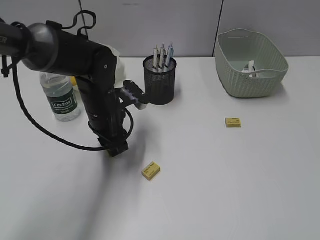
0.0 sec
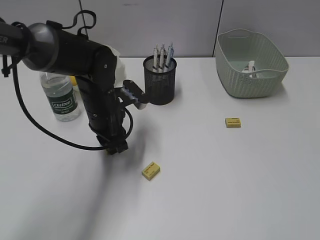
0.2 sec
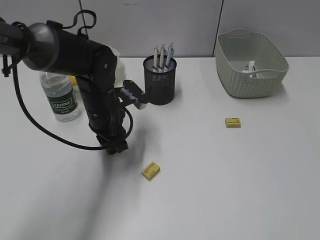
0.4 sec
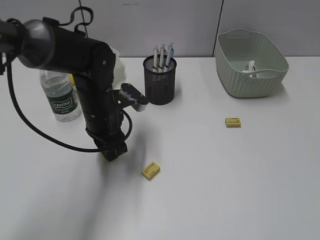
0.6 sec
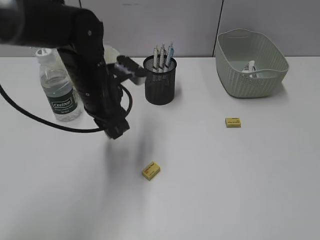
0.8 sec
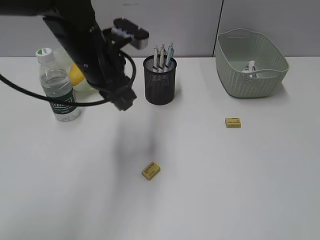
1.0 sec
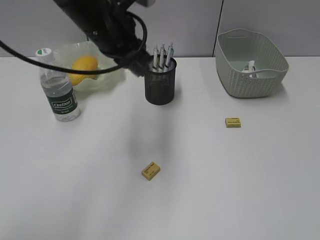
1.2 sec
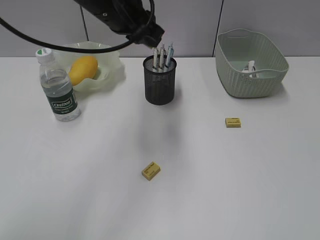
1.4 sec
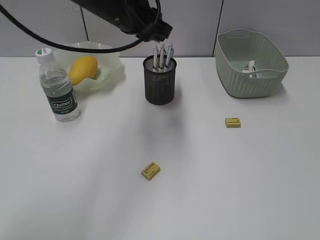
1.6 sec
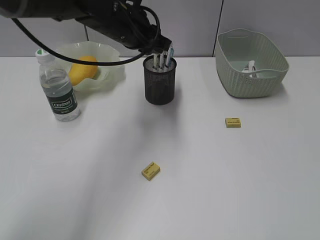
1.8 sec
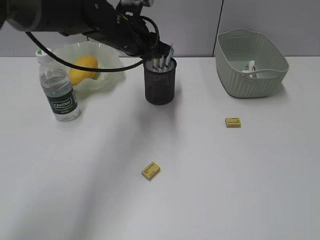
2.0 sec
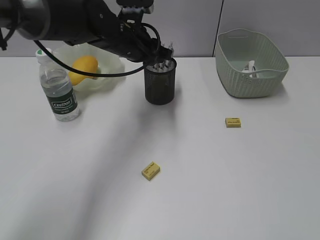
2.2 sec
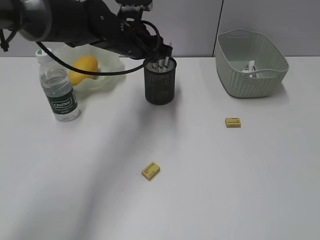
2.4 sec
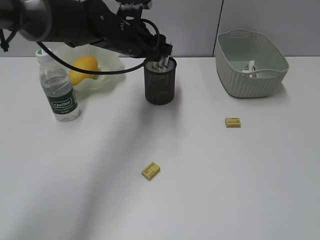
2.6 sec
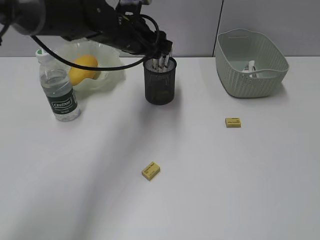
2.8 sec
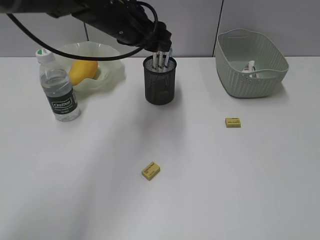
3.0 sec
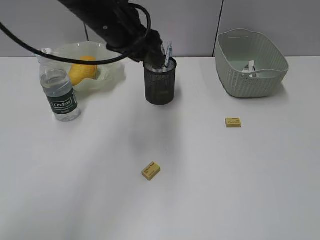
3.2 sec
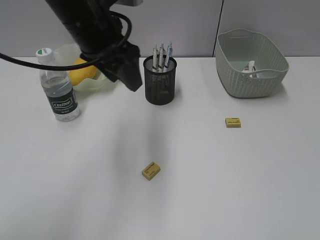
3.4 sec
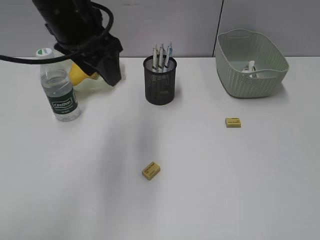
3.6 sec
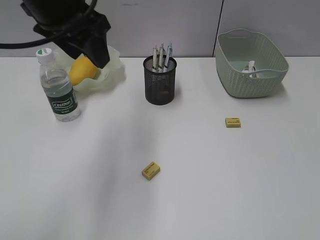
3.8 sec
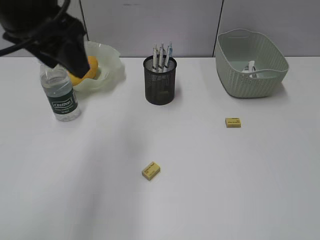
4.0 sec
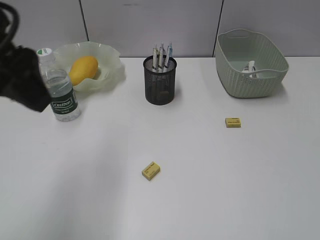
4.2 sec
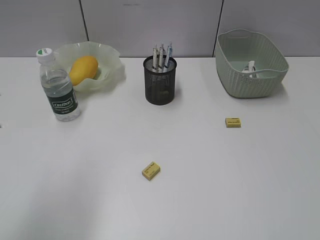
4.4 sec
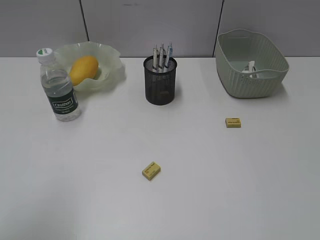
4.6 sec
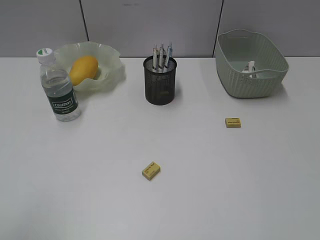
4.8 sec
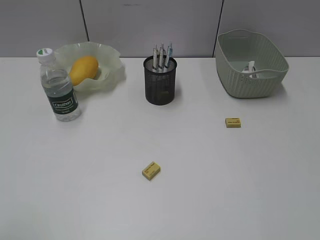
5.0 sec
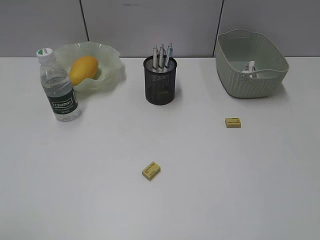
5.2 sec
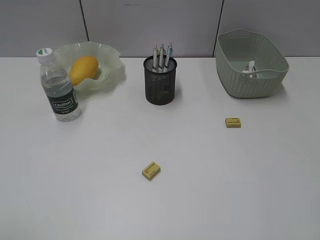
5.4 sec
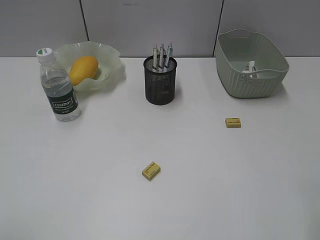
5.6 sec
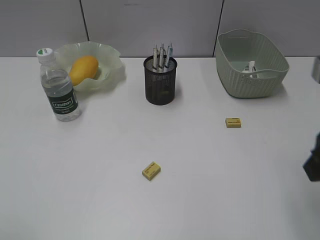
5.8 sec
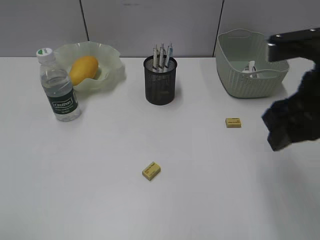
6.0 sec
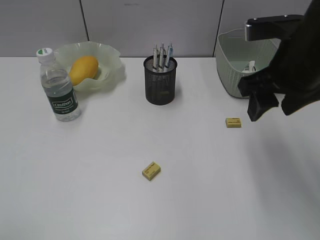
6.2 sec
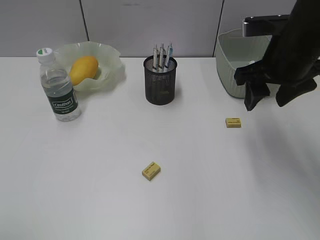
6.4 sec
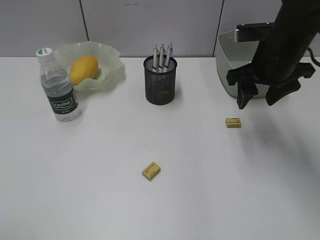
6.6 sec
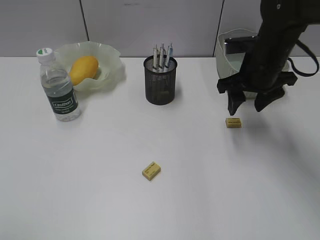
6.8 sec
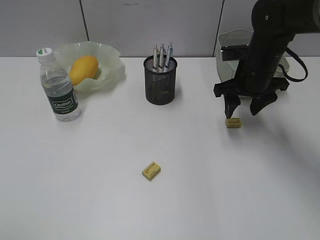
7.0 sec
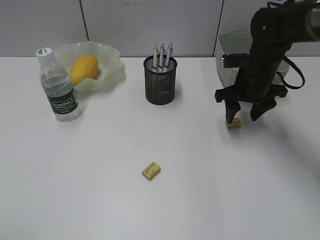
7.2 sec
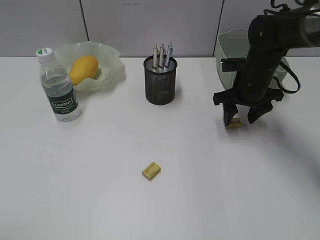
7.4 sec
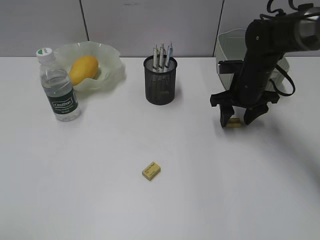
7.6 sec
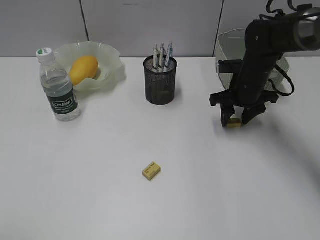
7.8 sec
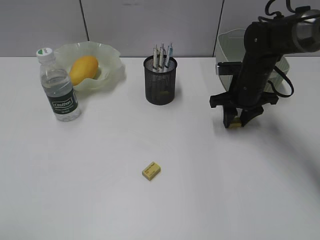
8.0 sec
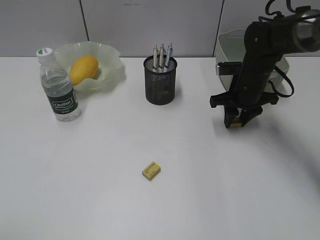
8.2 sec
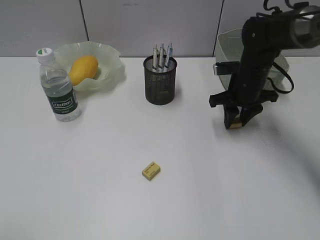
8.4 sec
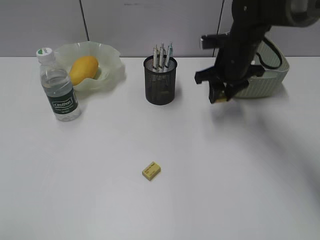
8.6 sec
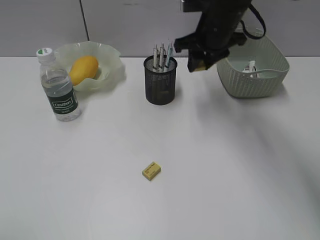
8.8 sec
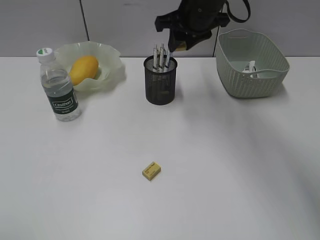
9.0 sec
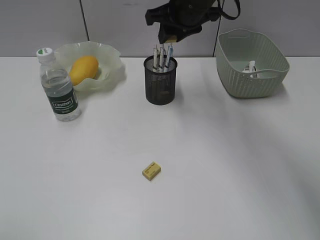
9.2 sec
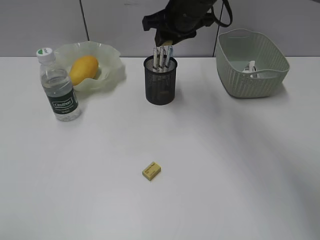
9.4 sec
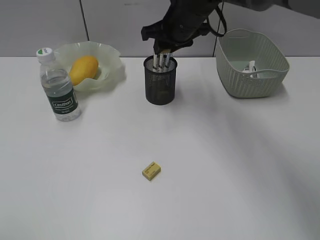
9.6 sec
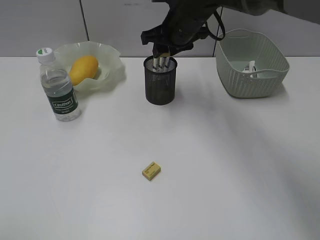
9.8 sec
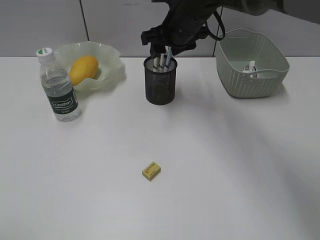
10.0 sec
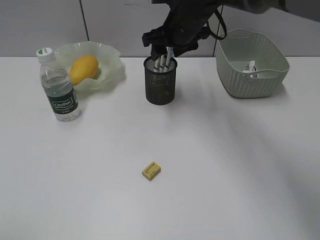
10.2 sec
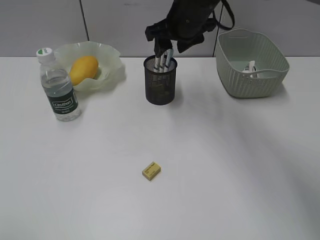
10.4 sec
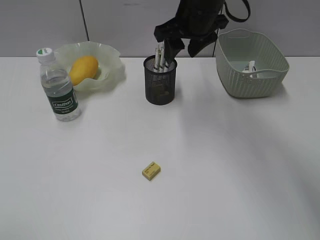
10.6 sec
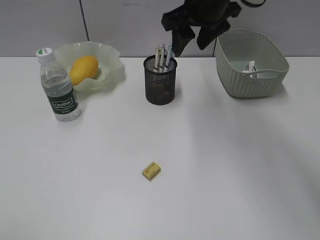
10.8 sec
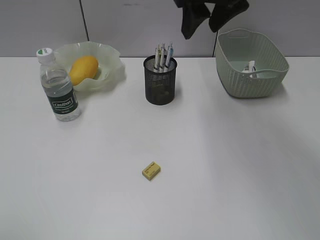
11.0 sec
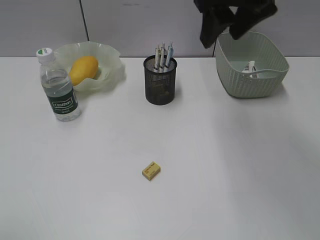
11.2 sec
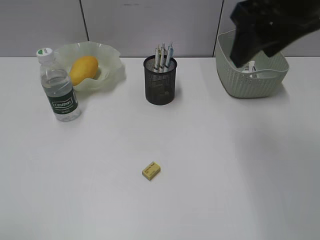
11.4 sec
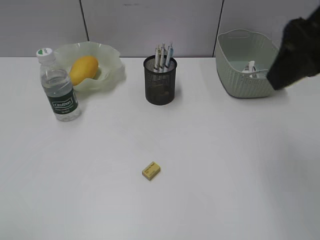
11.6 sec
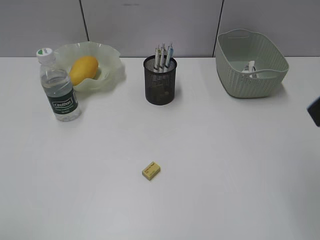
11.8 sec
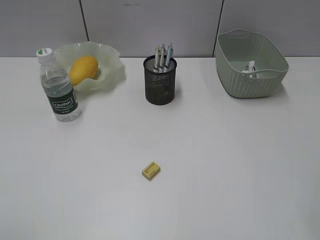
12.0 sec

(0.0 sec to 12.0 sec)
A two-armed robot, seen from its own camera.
Step, 0.6 sec - 2.4 sec: Place the eraser in pen holder with left gripper.
Step, 2.6 sec - 8.2 sec: Grasp the eraser with right gripper.
Step, 8.4 sec - 10.0 sec: Place the eraser in pen holder with right gripper.
0.0 sec - 1.6 sec: The left gripper travels upward by about 15 cm.
1.6 sec - 3.0 sec: The left gripper opens.
3.0 sec - 4.4 sec: The left gripper heads backward and to the left, covering roughly 30 cm.
4.4 sec - 6.0 sec: The right gripper is displaced forward and to the left by roughly 20 cm.
6.0 sec - 7.6 sec: The right gripper goes roughly 25 cm forward and downward.
7.6 sec - 9.0 sec: The right gripper moves upward and to the left, about 20 cm, and closes up.
9.0 sec - 10.4 sec: The right gripper opens its fingers.
10.4 sec - 12.0 sec: The right gripper is displaced backward and to the right by roughly 40 cm.

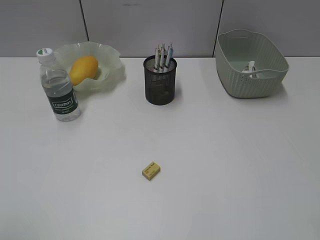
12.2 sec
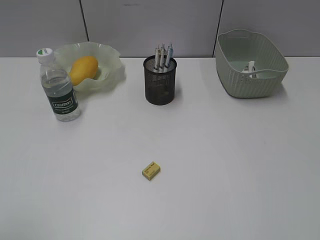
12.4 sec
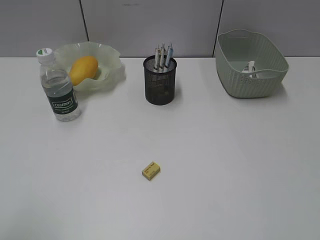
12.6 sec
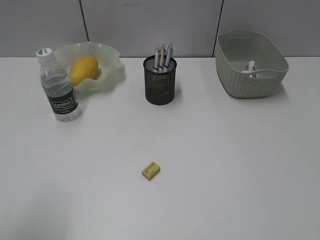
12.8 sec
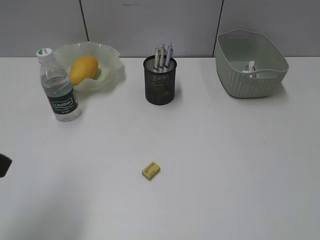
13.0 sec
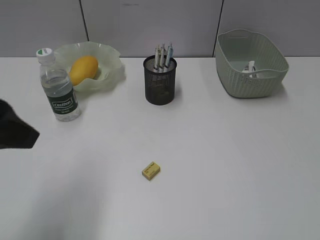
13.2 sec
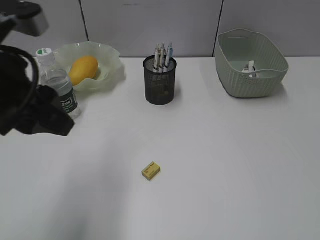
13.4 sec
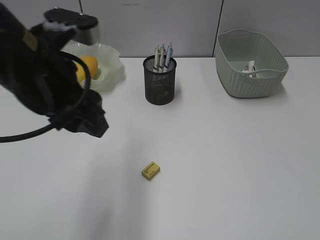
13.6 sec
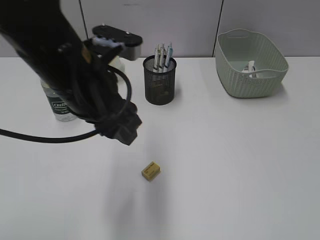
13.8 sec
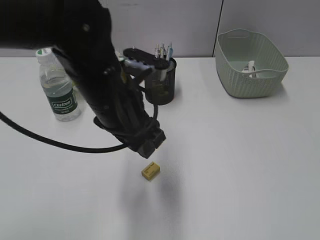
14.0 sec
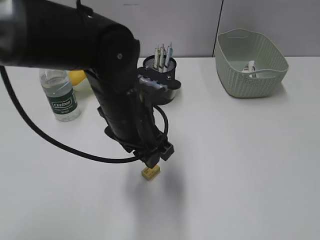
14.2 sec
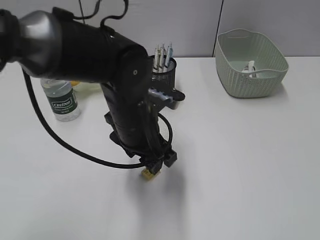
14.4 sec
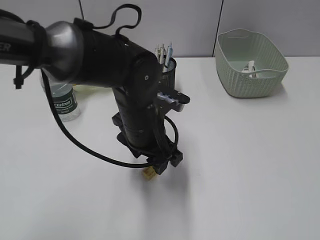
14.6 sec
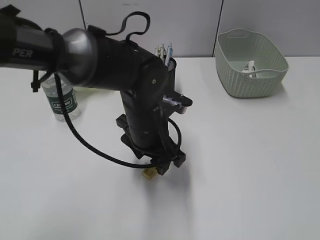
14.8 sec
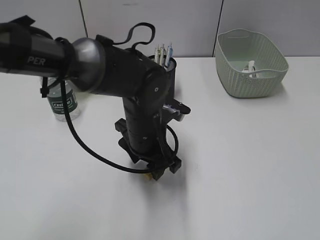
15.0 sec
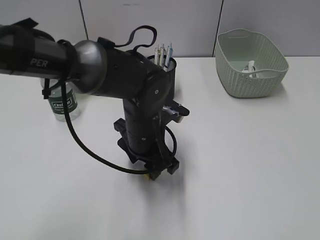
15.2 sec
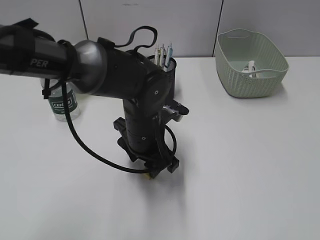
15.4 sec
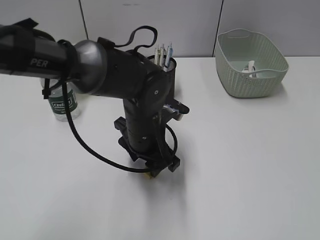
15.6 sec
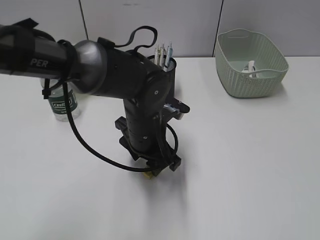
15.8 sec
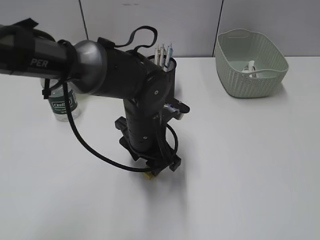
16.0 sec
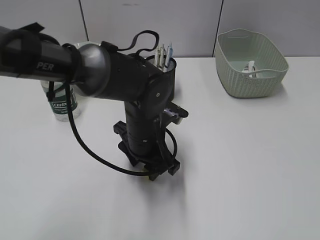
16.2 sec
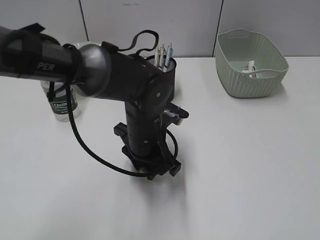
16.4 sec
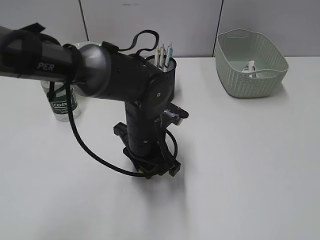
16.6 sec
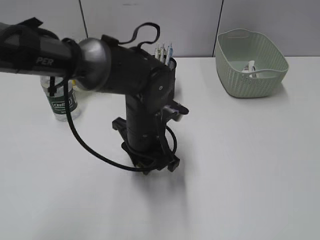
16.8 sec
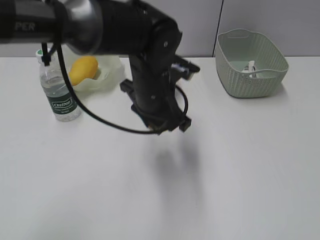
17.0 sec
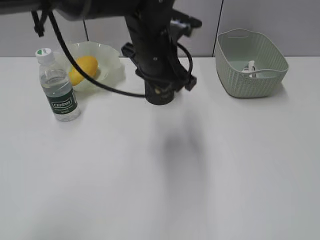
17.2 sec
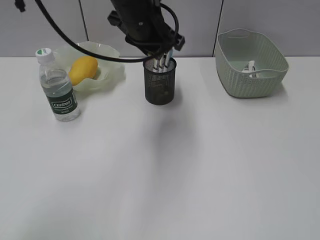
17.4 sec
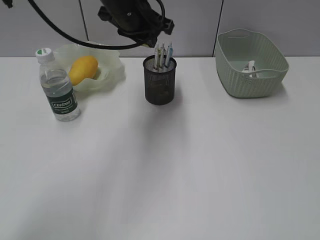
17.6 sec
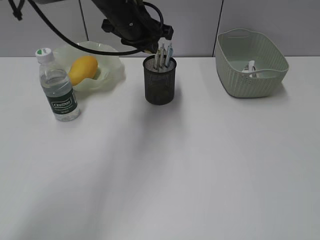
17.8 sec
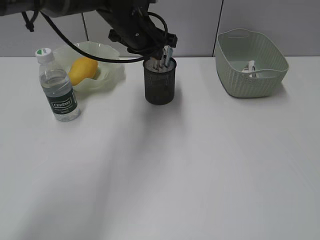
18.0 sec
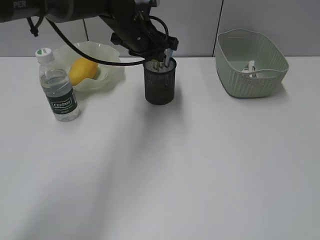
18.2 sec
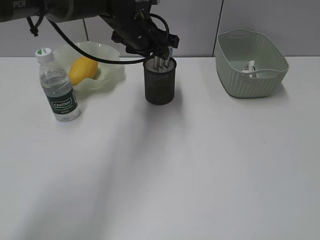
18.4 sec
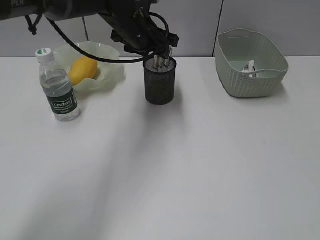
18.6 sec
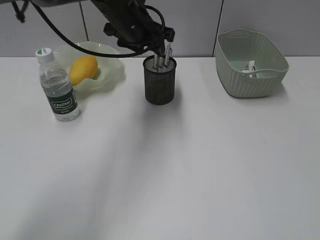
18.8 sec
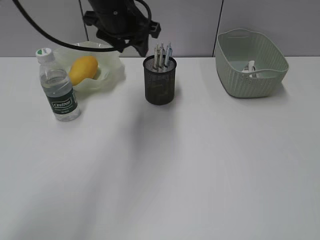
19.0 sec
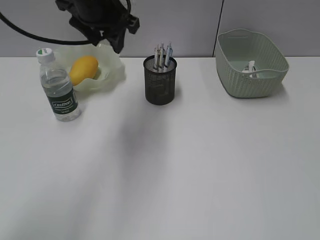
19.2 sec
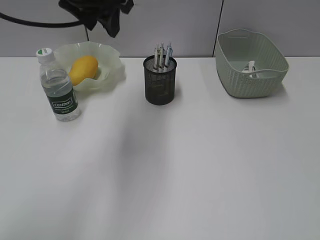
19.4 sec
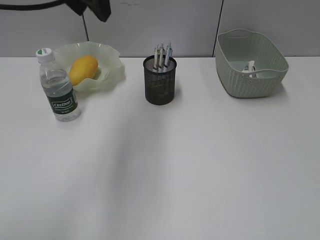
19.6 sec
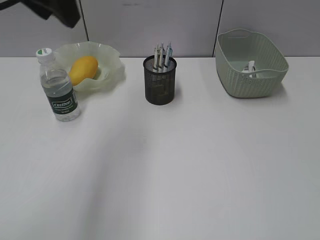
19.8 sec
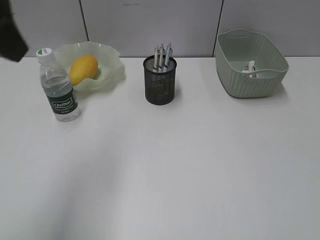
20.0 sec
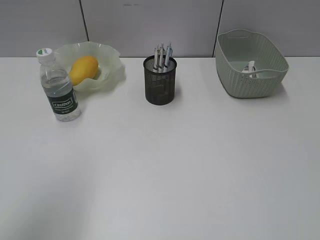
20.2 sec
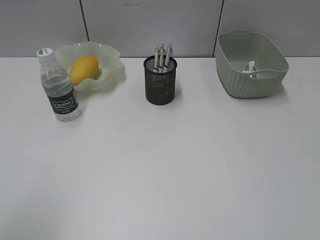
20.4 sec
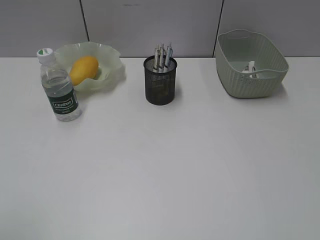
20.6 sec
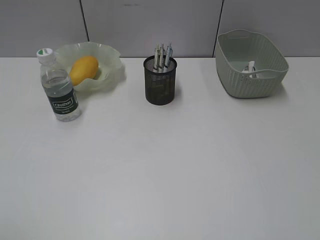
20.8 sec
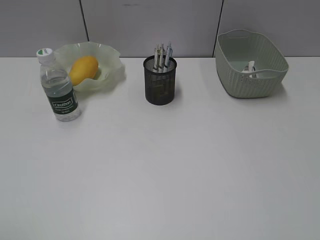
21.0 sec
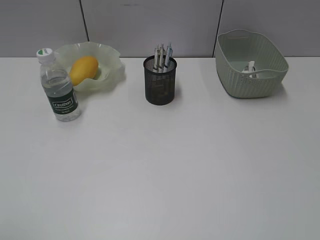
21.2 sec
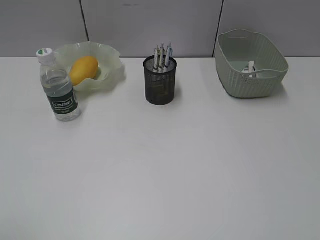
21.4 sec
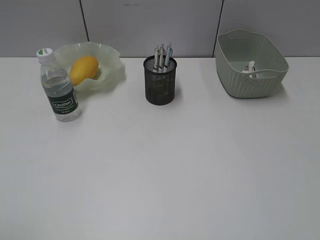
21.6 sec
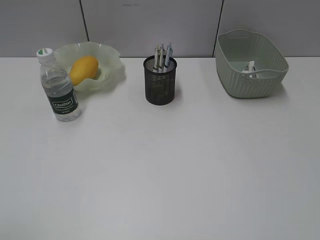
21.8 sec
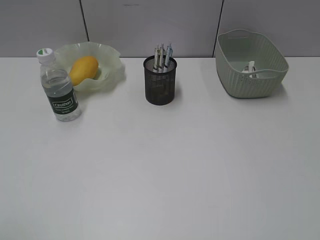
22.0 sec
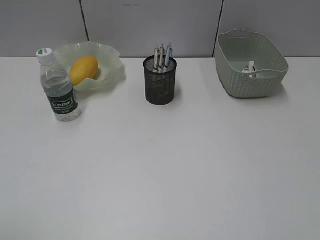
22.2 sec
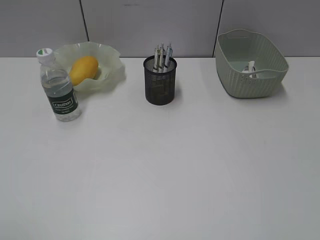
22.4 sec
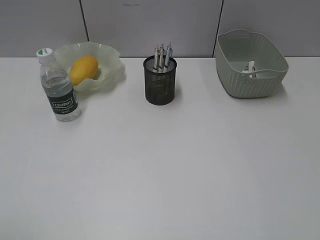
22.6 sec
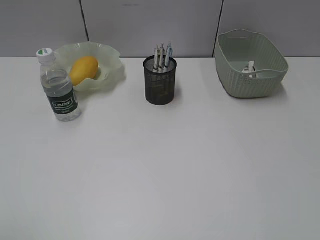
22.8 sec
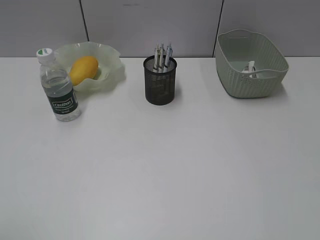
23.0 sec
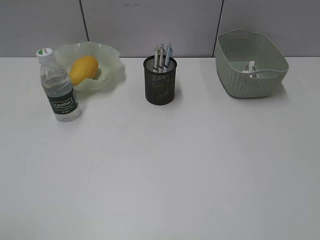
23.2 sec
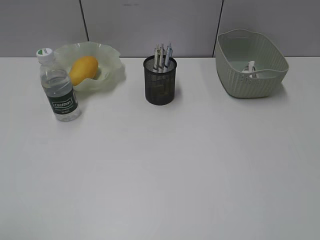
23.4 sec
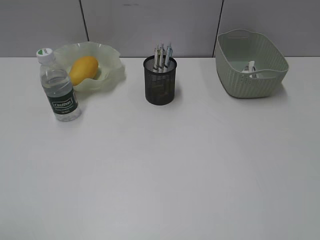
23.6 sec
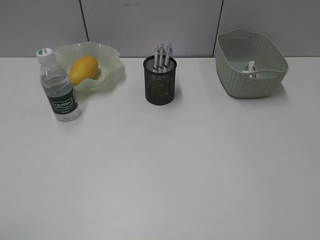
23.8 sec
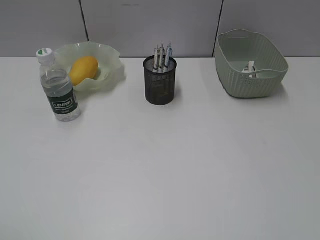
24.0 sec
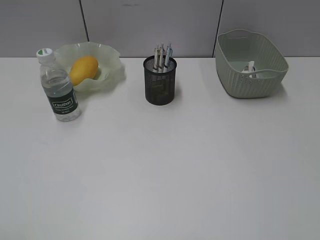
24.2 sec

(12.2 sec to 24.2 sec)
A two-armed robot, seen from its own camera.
Step, 12.2 sec - 16.6 sec: Grasp the eraser with left gripper.
Step, 16.8 sec - 18.4 sec: Place the eraser in pen holder with left gripper.
12.2 sec - 13.8 sec: The right gripper heads downward, covering some 5 cm; the left gripper moves forward and to the right, some 30 cm.
13.8 sec - 15.2 sec: The left gripper shifts roughly 15 cm downward and to the right.
15.2 sec - 16.6 sec: The left gripper closes up.
16.6 sec - 18.2 sec: The left gripper moves forward and upward, about 20 cm.
18.2 sec - 19.8 sec: The left gripper shifts roughly 25 cm upward, backward and to the left.
19.8 sec - 21.2 sec: The left gripper shifts approximately 30 cm backward, to the left and downward.
